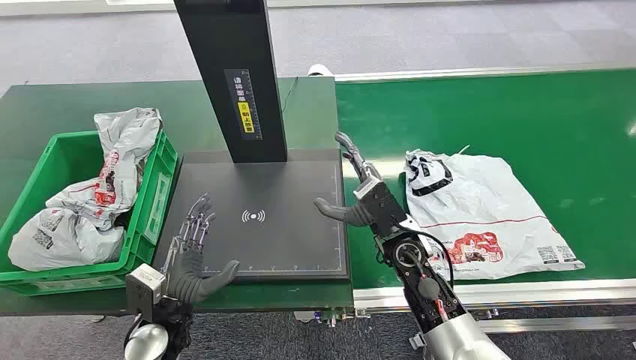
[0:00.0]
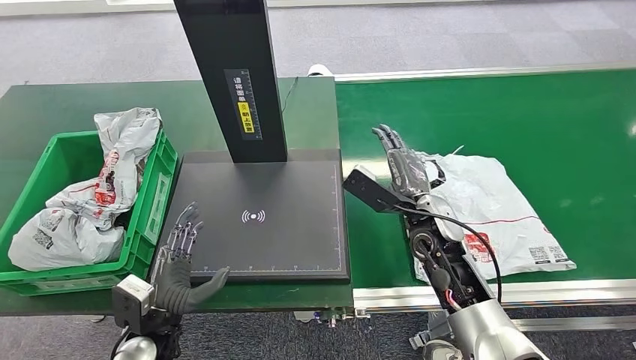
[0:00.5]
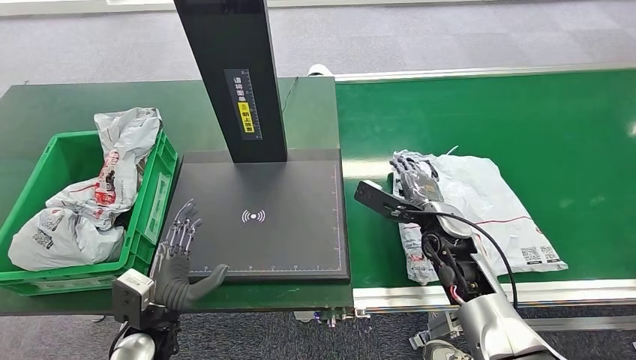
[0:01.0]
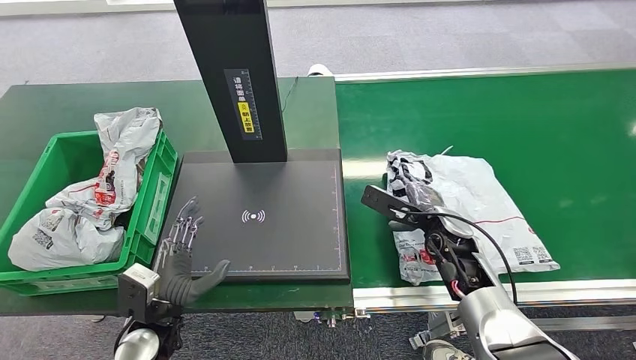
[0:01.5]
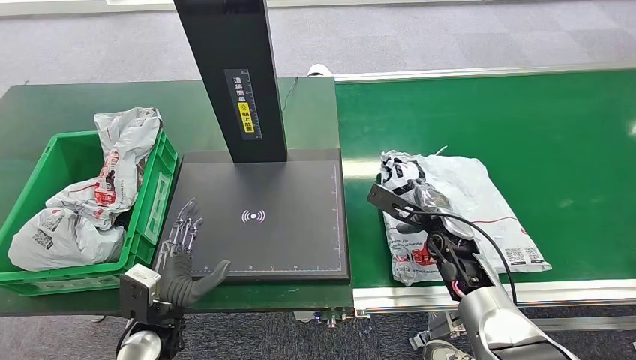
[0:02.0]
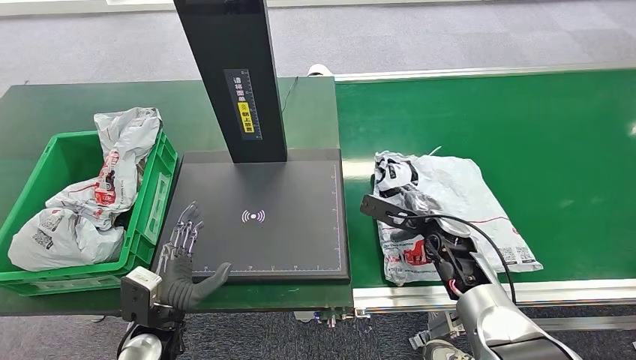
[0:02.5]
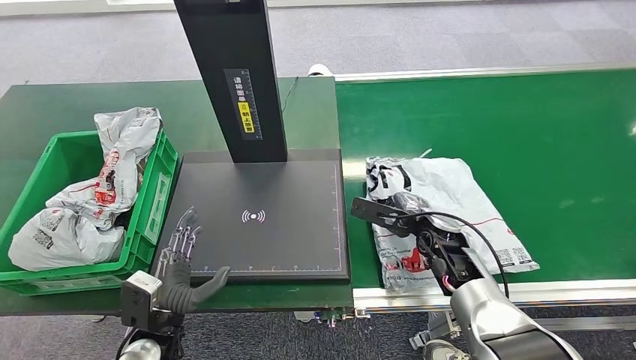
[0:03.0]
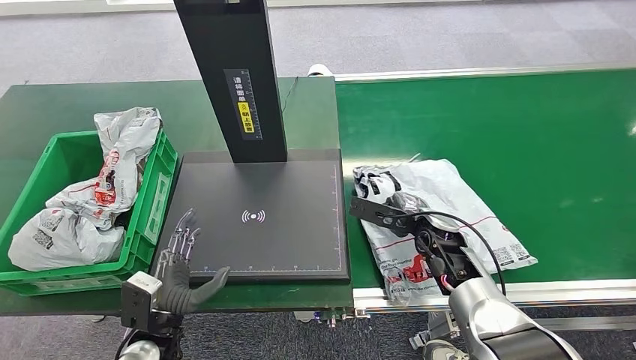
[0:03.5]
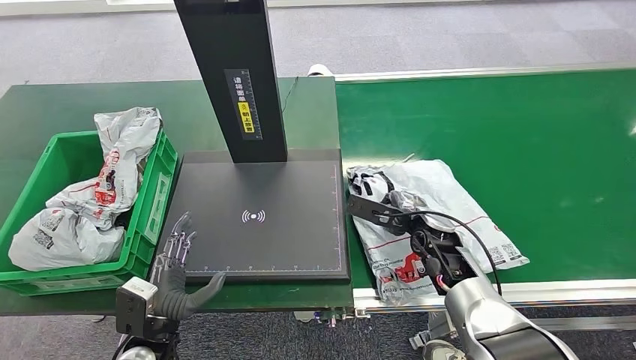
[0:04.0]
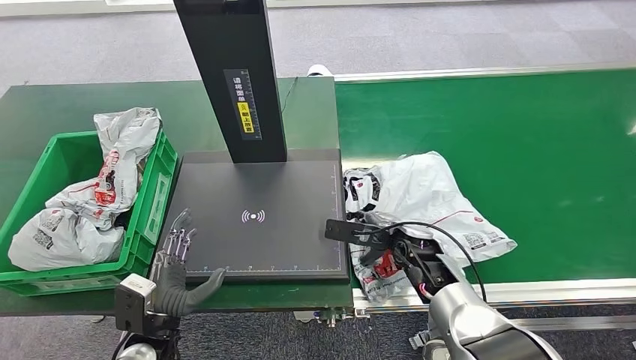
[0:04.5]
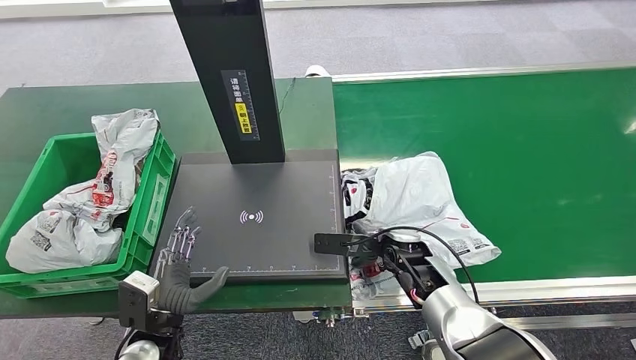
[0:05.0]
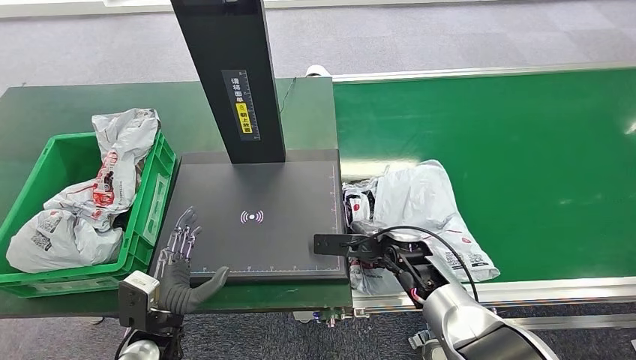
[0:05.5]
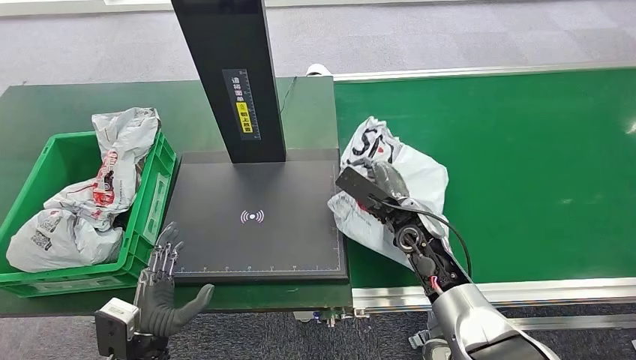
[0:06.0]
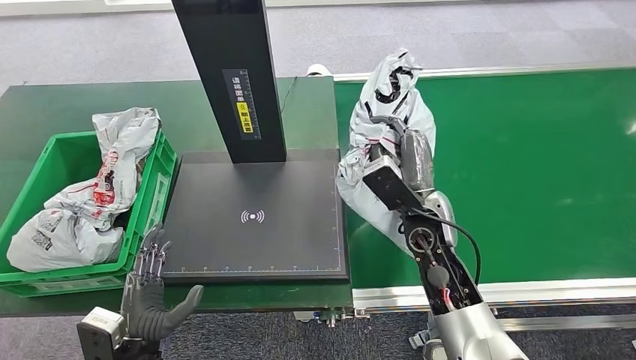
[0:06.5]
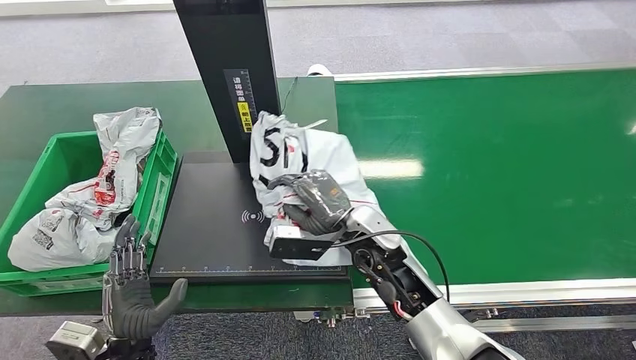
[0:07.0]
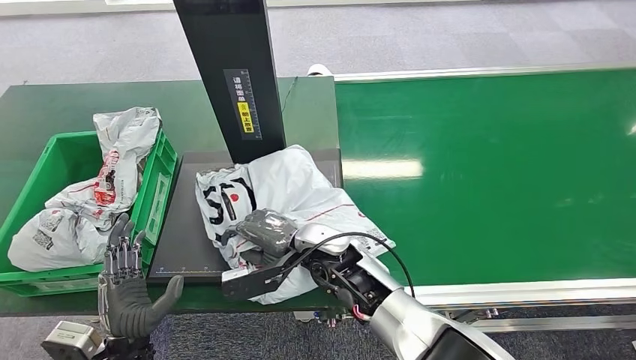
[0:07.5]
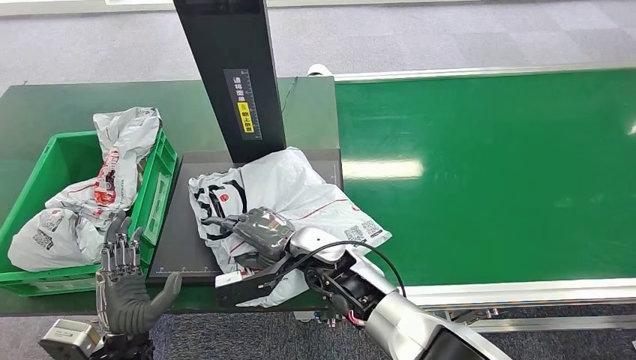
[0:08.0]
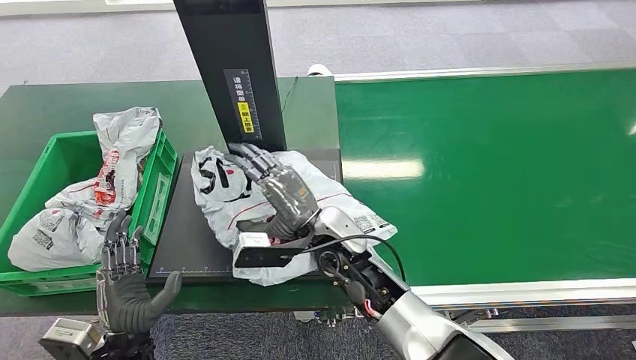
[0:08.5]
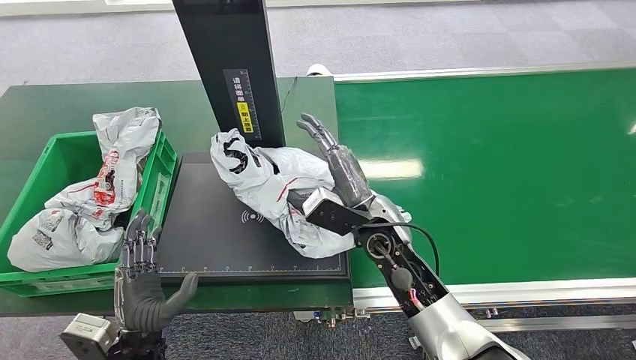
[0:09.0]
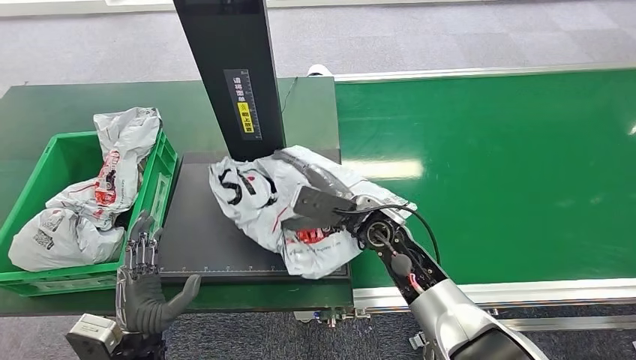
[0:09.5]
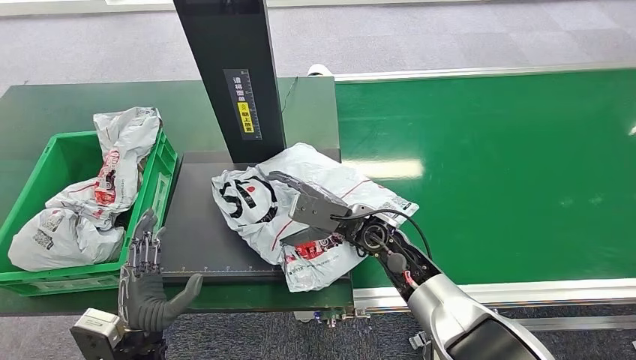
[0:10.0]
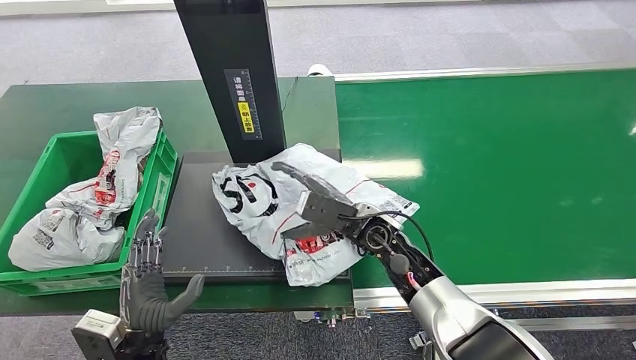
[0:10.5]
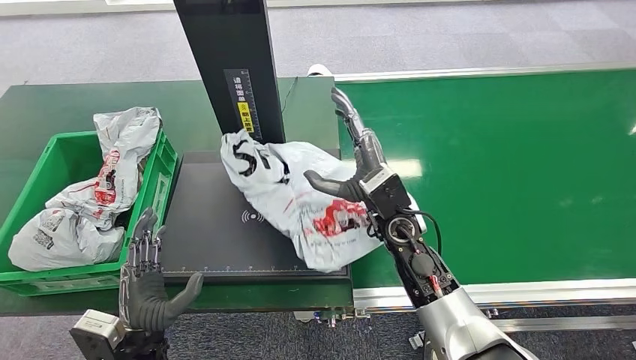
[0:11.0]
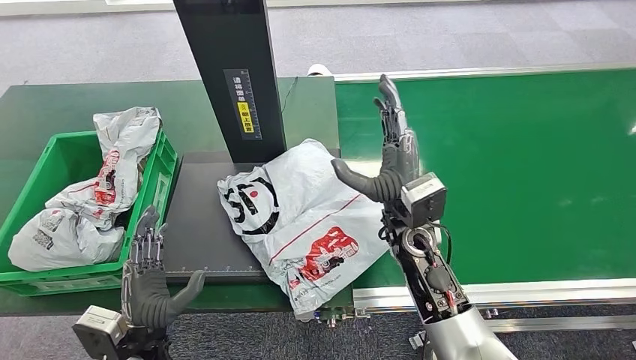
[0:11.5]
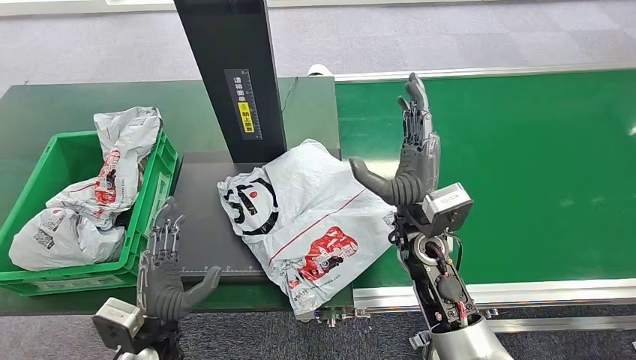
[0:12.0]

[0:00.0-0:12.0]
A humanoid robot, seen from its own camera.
Step, 0:00.0 to 0:06.5: Pick up the package from the conveyor belt.
Step, 0:07.0 to 0:12.0: Place the package onto the inbound machine.
0:02.0 to 0:04.0: The hands make only small movements.
0:08.0 to 0:10.0: The right hand moves to the right, approximately 10 cm.
0:10.0 to 0:12.0: The right hand goes about 5 cm upward.

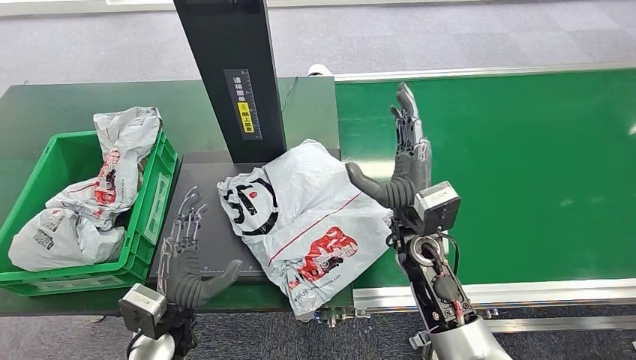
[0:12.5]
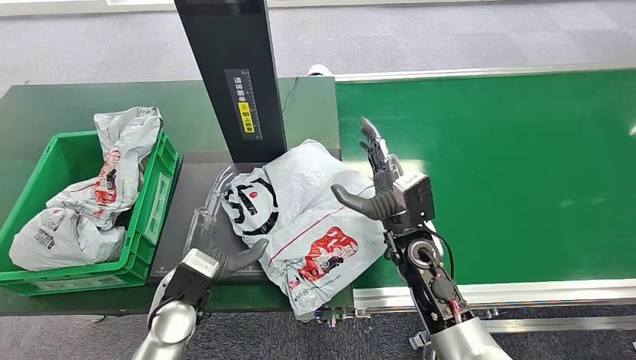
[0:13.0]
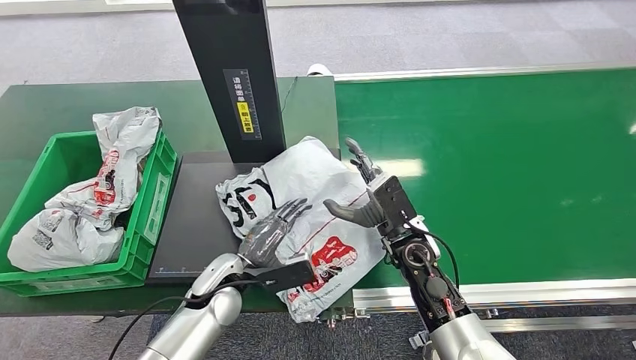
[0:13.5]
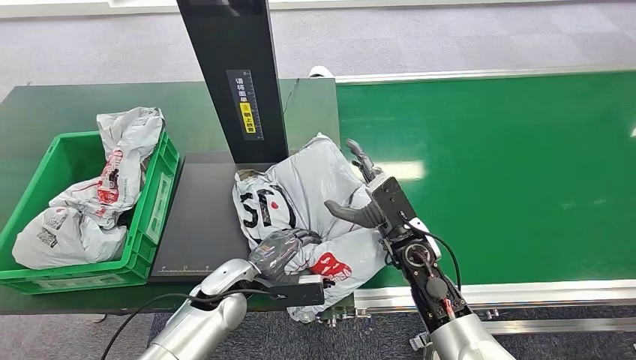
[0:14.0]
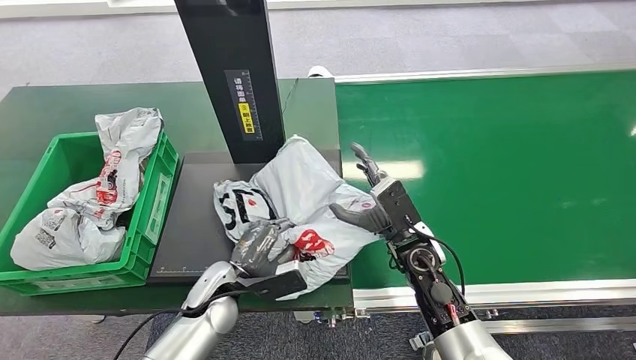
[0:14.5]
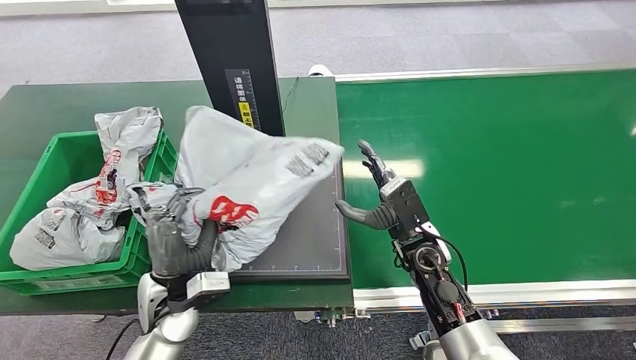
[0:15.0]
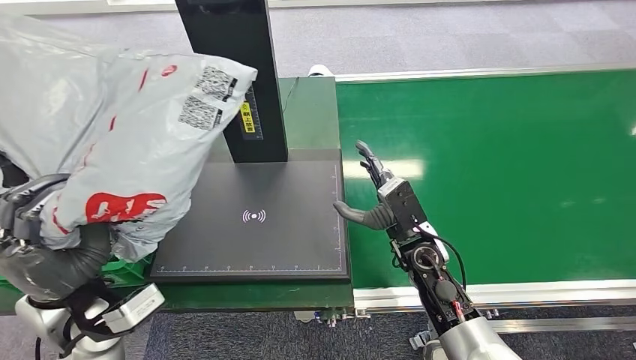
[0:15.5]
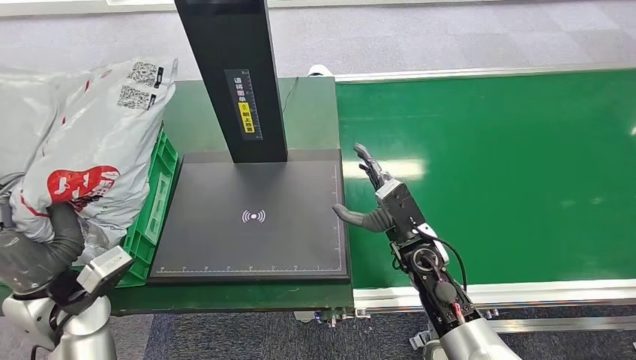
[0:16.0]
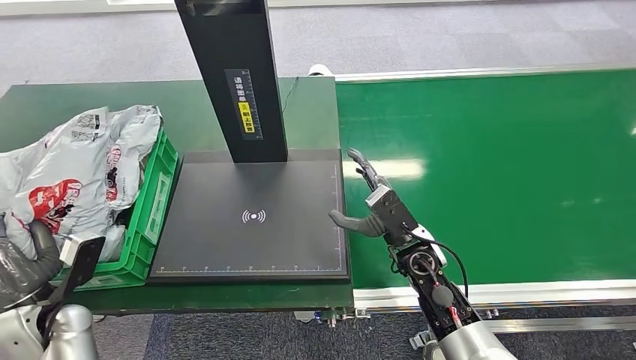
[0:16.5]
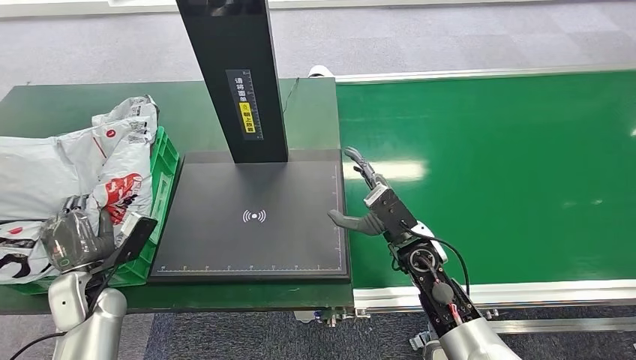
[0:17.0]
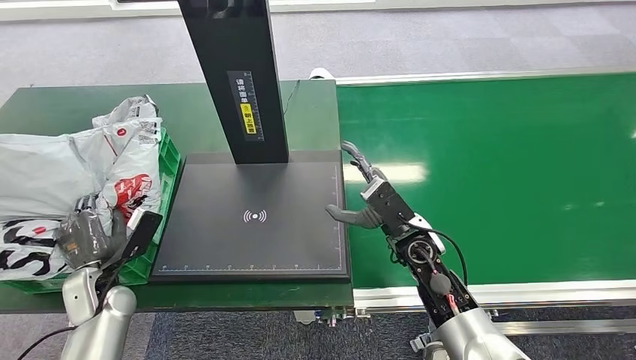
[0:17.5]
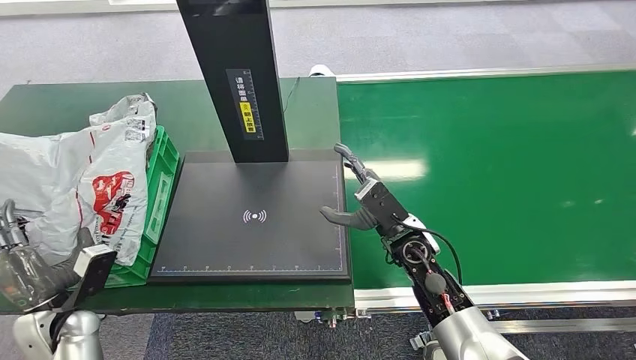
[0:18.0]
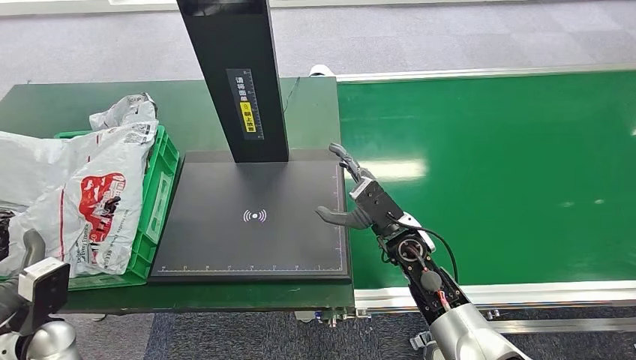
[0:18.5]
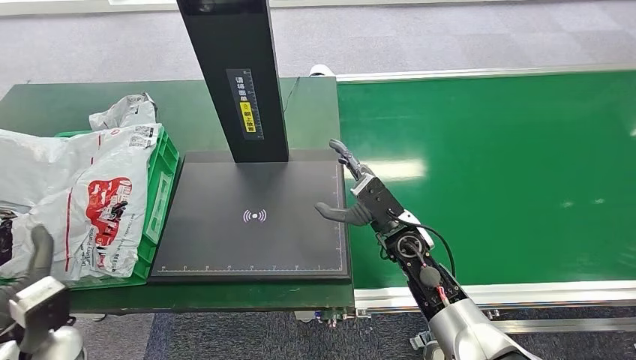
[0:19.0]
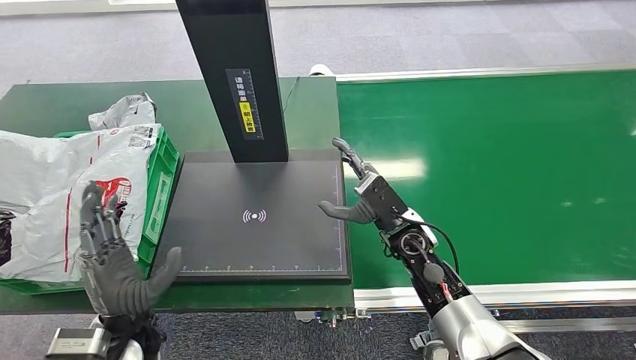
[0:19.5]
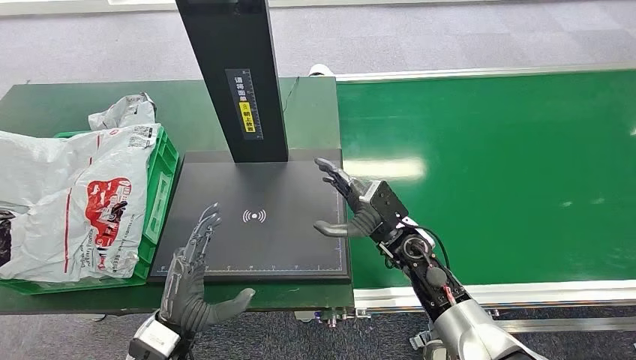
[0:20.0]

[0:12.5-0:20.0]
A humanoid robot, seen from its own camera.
Step, 0:12.5 to 0:15.0: Pick up the package from the inbound machine.
Step, 0:15.5 to 0:20.0: Place the package into the parcel locker.
0:12.5 to 0:14.5: The left hand travels forward by about 5 cm; the right hand travels downward by roughly 5 cm.
0:18.0 to 0:20.0: The left hand moves to the right, about 20 cm.
